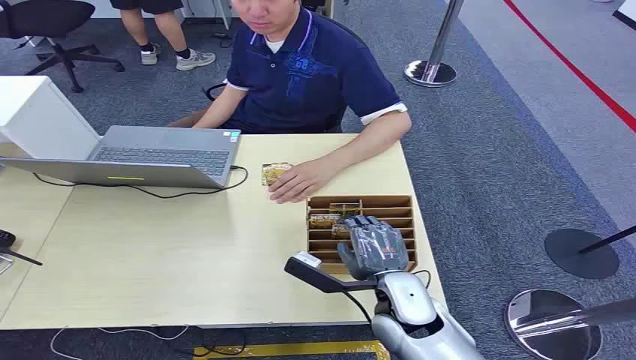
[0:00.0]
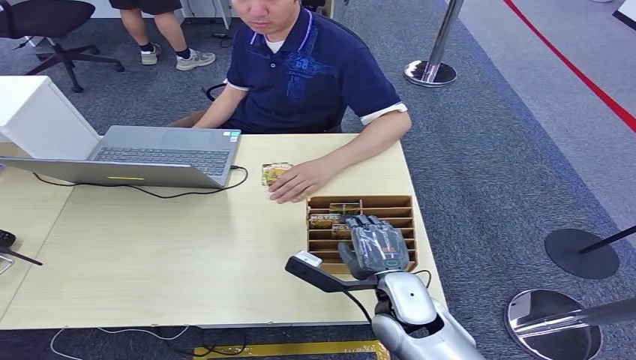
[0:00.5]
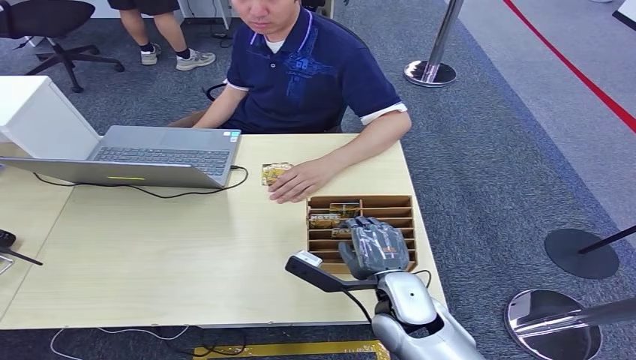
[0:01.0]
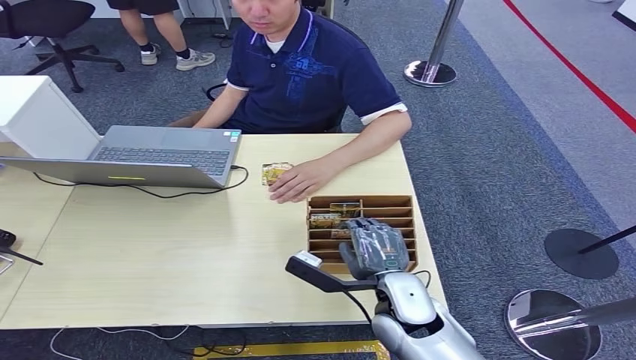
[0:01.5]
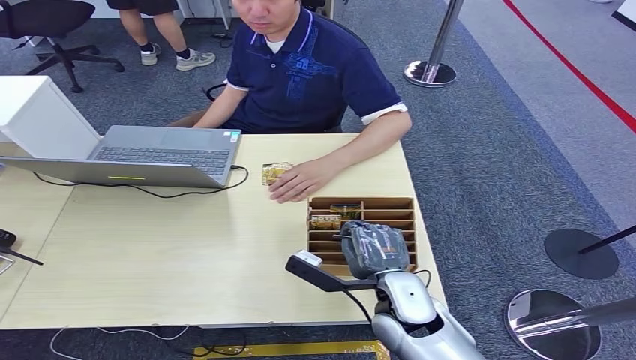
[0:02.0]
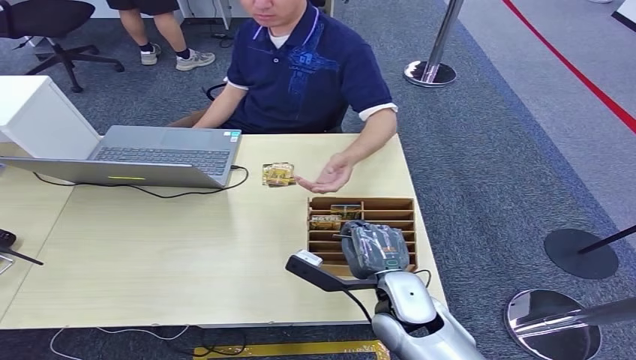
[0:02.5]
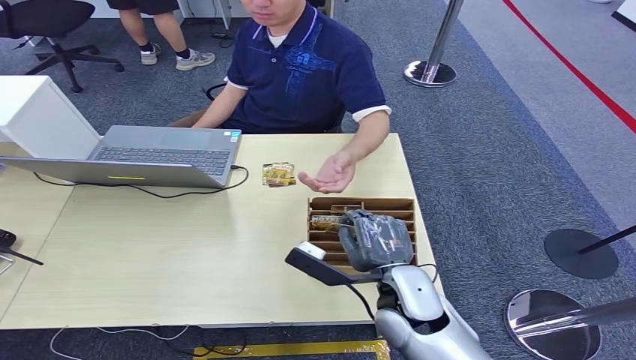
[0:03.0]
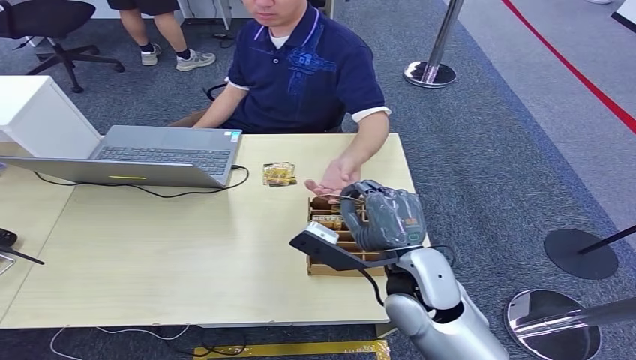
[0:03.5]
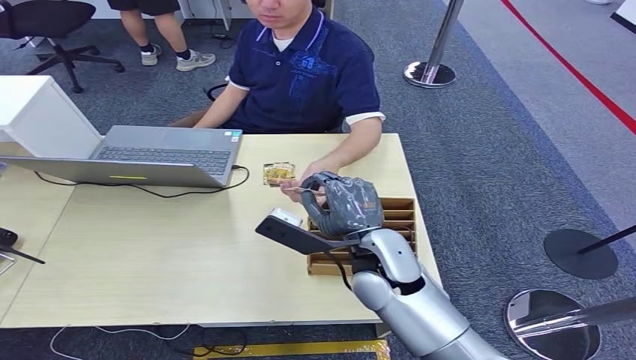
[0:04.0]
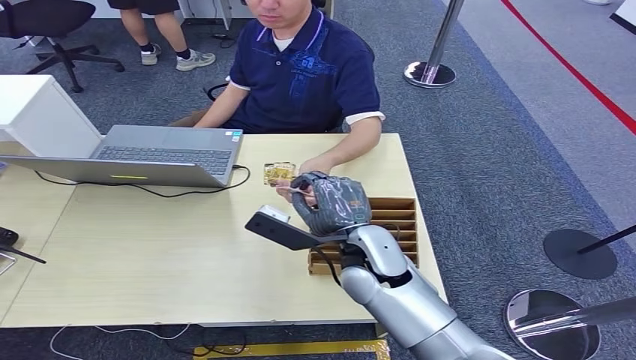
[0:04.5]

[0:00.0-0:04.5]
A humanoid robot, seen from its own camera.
Task of the whole recording: Pick up the card and hand it to the target person.
Step, 0:00.0 to 0:03.0: Pick up the key card from the card box.
Step, 0:03.5 to 0:04.5: Hand the key card to the target.
0:02.0 to 0:04.5: The right hand is displaced upward and forward by approximately 10 cm.
